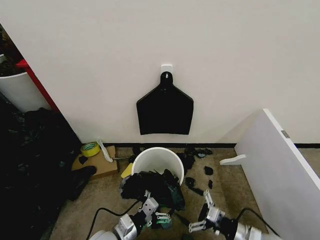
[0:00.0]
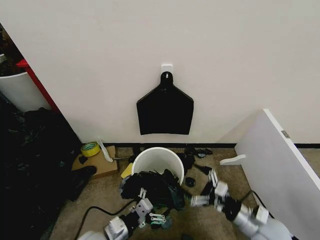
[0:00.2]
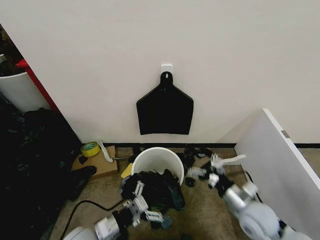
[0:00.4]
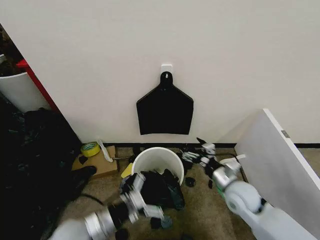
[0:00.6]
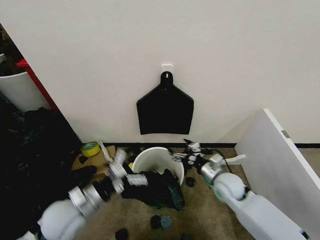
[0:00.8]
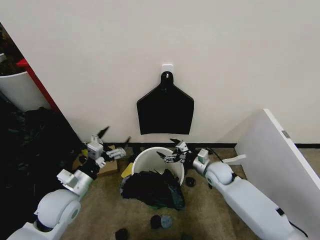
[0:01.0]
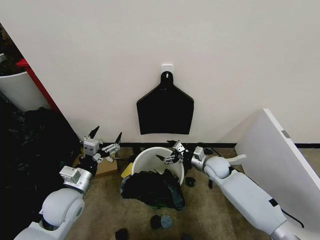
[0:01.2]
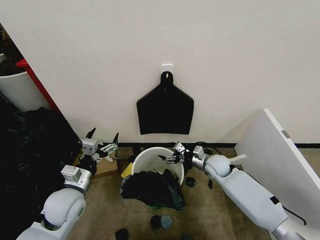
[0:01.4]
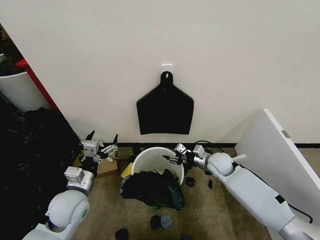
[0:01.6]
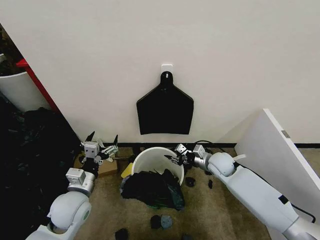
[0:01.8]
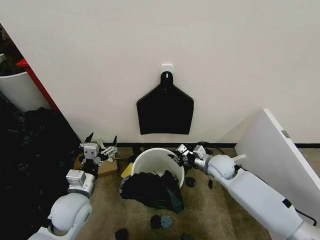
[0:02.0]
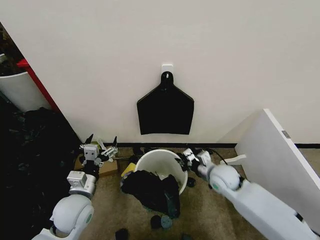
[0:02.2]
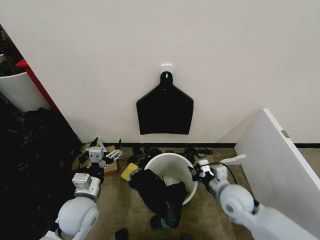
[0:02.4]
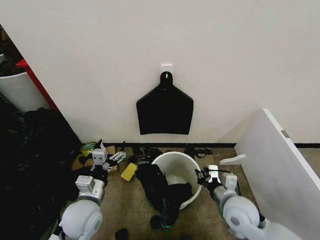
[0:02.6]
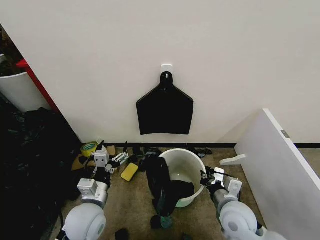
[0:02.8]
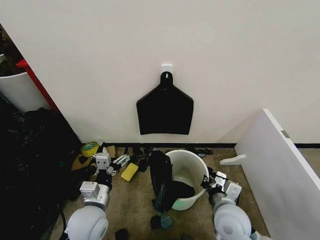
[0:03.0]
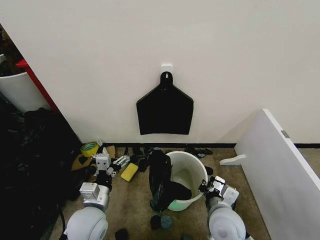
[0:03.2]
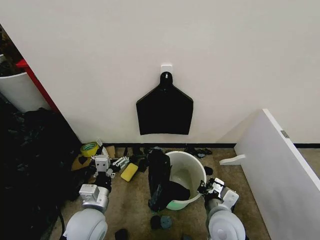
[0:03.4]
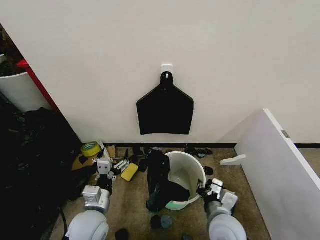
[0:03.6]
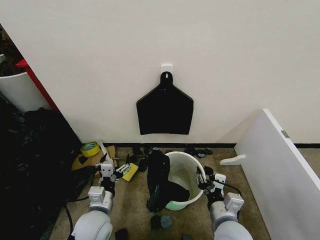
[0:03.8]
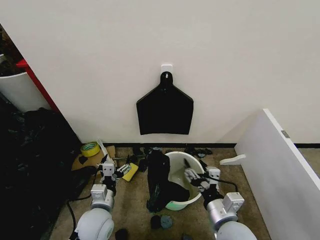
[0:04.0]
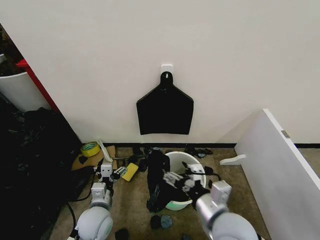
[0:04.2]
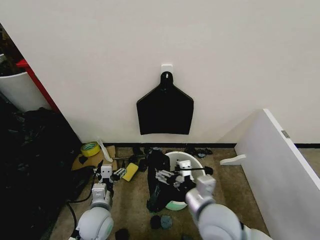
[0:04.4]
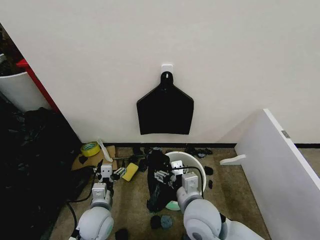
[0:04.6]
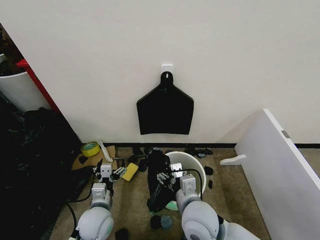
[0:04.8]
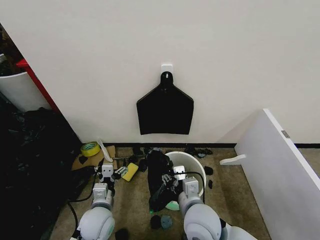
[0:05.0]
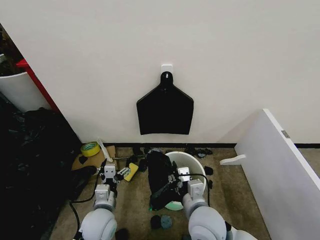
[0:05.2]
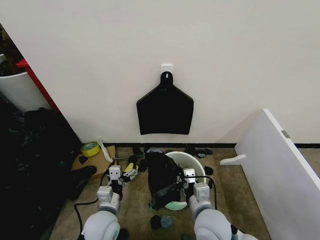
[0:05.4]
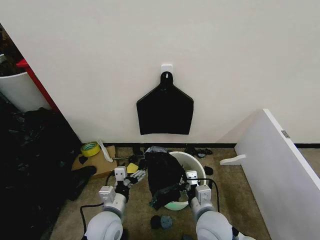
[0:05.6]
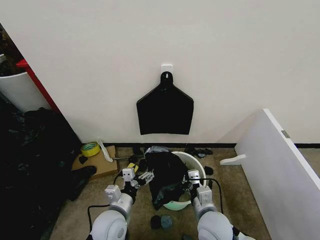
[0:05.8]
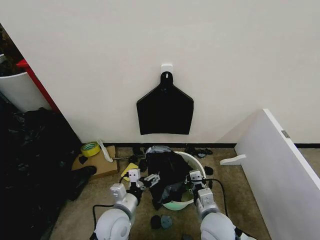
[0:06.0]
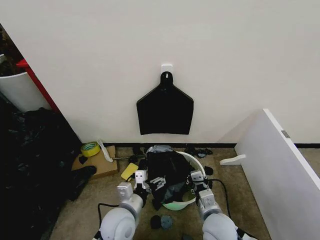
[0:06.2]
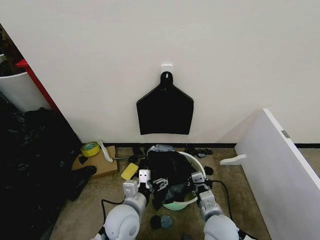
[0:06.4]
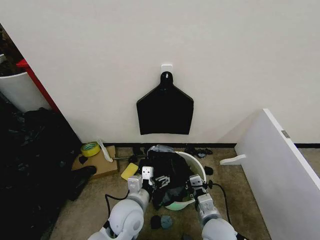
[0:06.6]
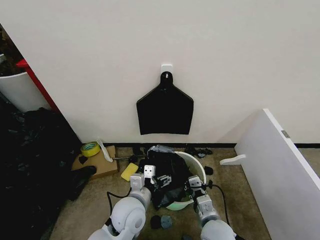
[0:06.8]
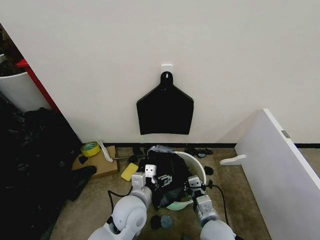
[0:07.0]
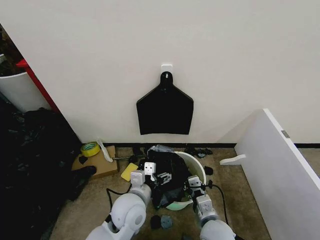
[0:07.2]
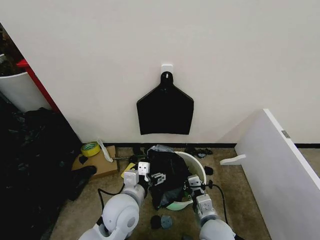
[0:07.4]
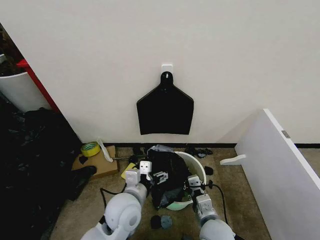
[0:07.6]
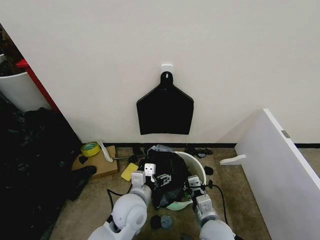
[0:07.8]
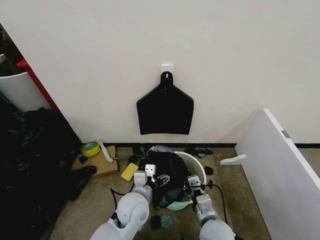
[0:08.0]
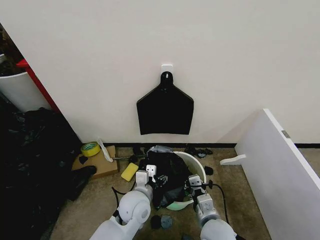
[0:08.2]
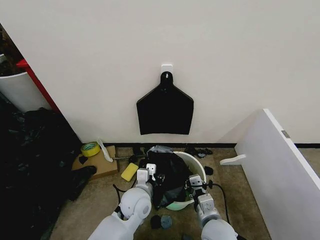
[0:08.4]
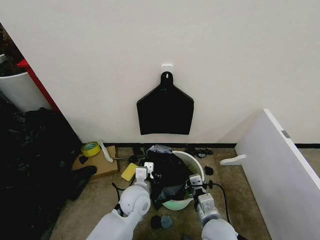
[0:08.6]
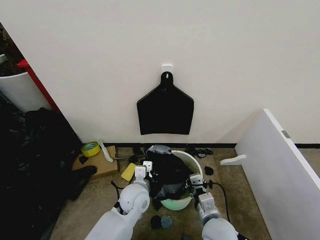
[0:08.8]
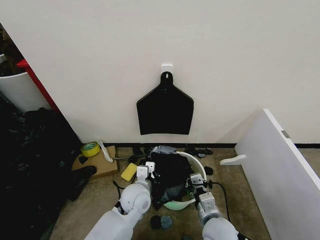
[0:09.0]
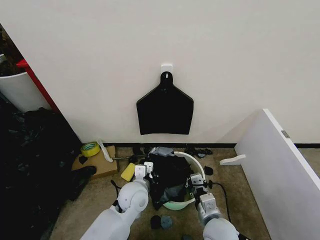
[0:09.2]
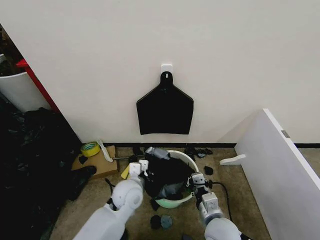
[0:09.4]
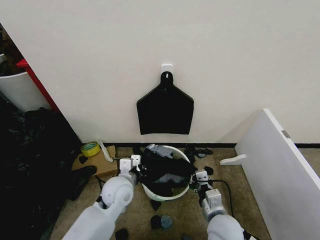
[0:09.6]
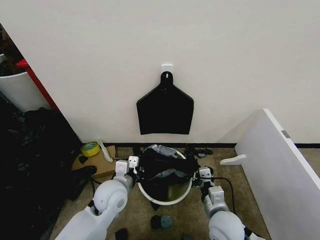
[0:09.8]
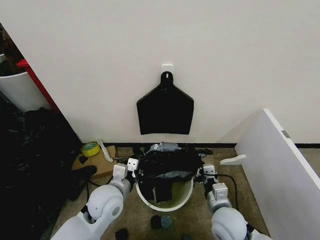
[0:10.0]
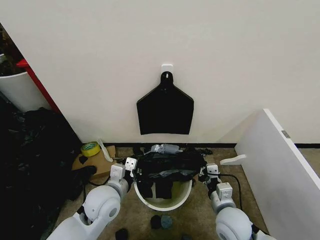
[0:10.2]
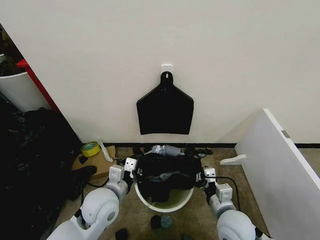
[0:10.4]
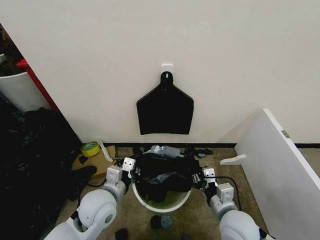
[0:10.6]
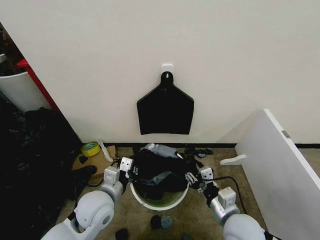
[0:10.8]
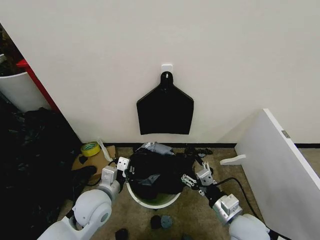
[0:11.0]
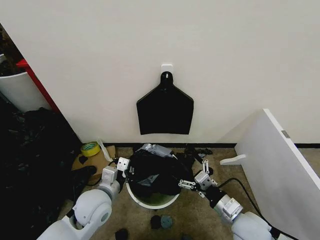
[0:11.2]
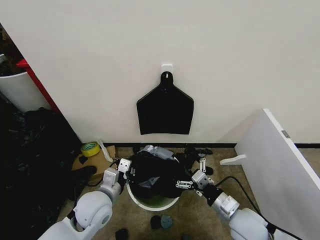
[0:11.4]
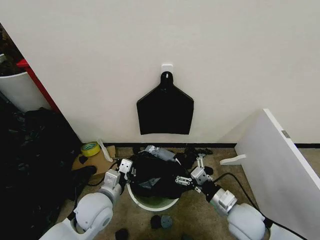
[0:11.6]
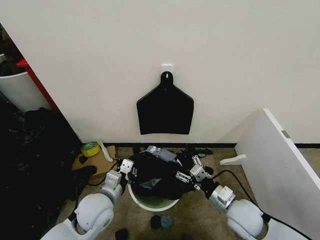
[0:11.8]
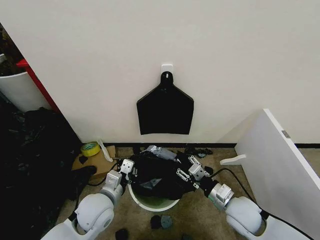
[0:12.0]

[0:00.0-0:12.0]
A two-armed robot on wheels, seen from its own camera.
Task of the whole recording: Place the garbage bag over the trash bin.
0.0 to 1.6 s: The left gripper is displaced upward, to the left and forward by some 15 cm; the right gripper shifts roughly 25 cm forward, and closes up.
1.6 to 3.0 s: The left gripper shifts roughly 5 cm to the right. The right gripper is displaced backward by roughly 20 cm, and closes.
3.0 to 4.4 s: The right gripper shifts roughly 10 cm upward and to the left, and opens up. Meanwhile the left gripper is displaced downward by roughly 5 cm.
4.4 to 6.0 s: The left gripper travels to the right by about 5 cm. The right gripper goes some 10 cm downward, and closes.
6.0 to 7.6 s: The left gripper goes about 5 cm upward.
7.6 to 9.0 s: The left gripper moves downward and forward, approximately 10 cm, and closes.
9.0 to 10.4 s: The left gripper is displaced to the left and upward by approximately 10 cm. Meanwhile the right gripper shifts by roughly 5 cm.
10.4 to 12.0 s: The right gripper moves approximately 5 cm, and opens its fingers.

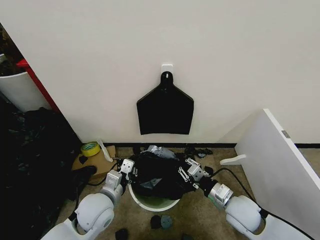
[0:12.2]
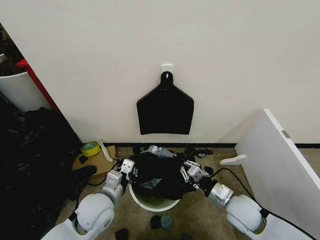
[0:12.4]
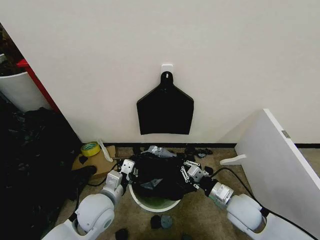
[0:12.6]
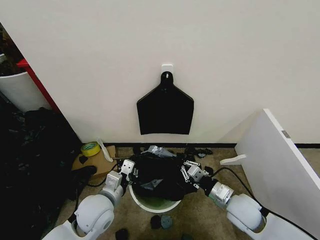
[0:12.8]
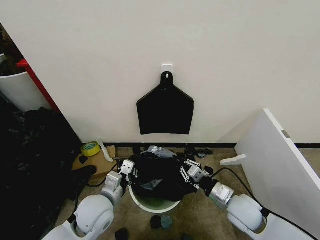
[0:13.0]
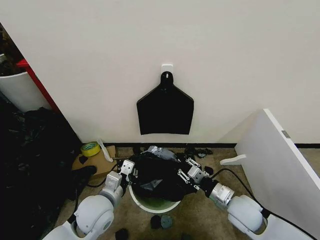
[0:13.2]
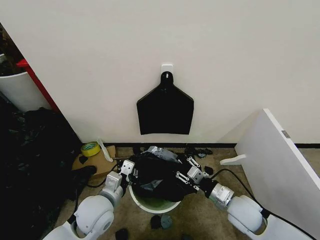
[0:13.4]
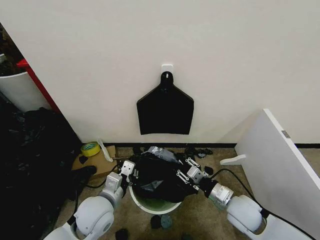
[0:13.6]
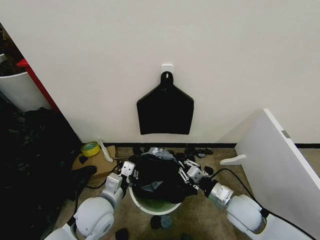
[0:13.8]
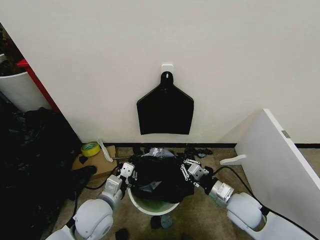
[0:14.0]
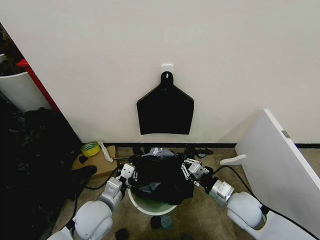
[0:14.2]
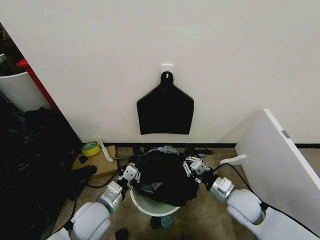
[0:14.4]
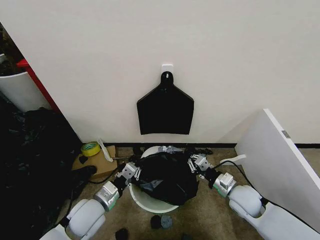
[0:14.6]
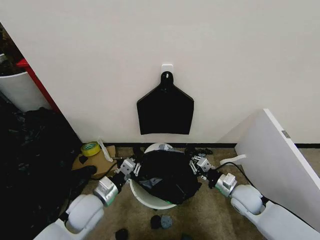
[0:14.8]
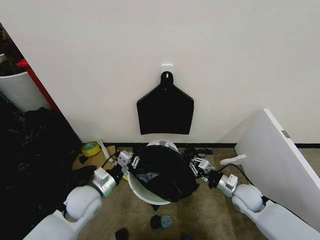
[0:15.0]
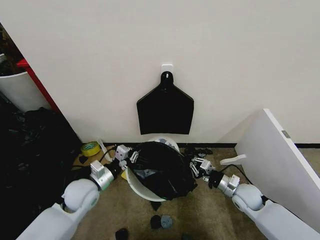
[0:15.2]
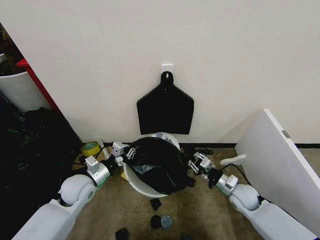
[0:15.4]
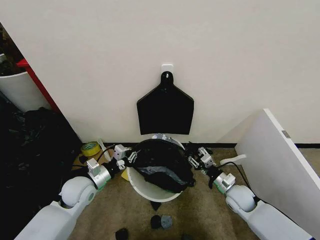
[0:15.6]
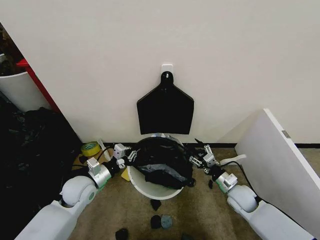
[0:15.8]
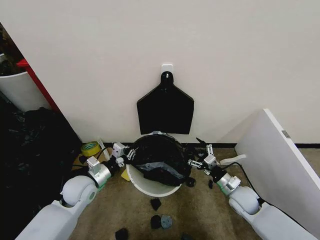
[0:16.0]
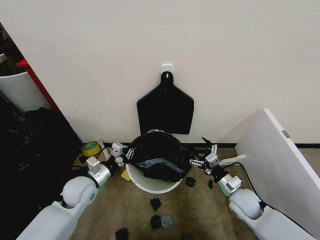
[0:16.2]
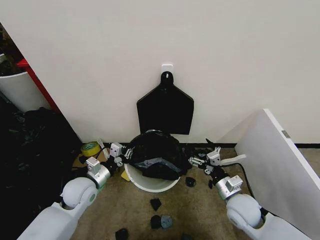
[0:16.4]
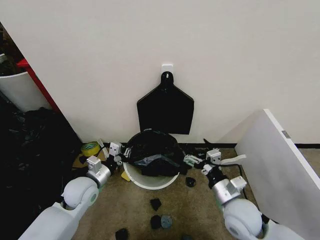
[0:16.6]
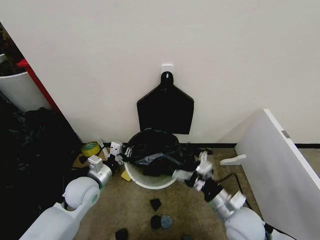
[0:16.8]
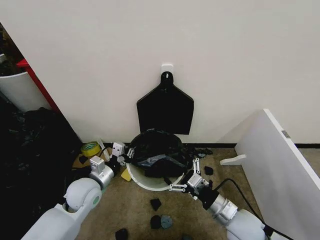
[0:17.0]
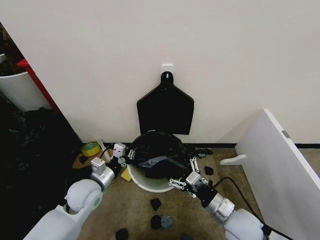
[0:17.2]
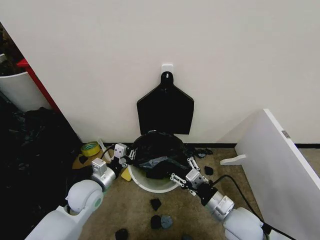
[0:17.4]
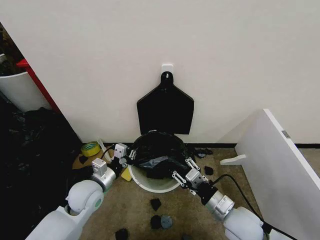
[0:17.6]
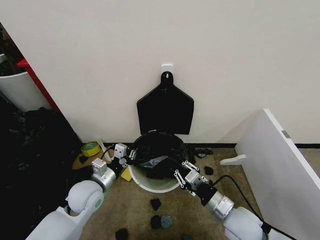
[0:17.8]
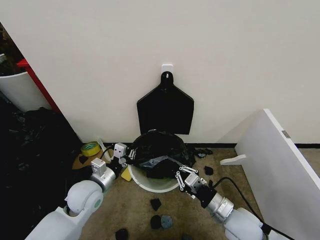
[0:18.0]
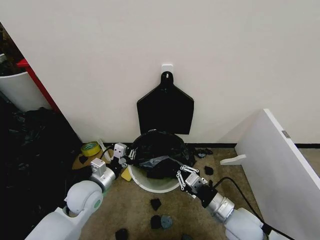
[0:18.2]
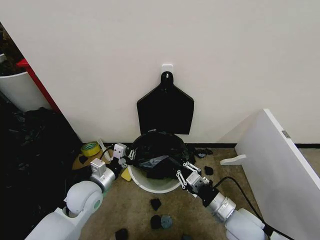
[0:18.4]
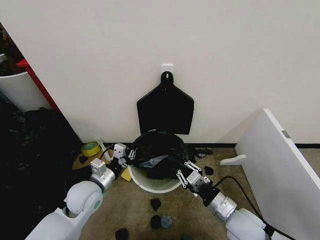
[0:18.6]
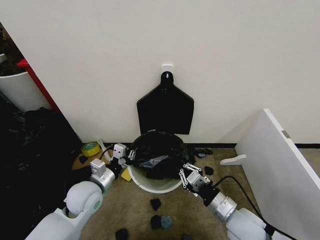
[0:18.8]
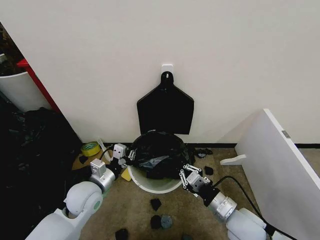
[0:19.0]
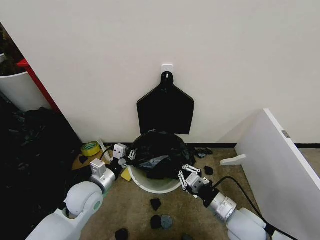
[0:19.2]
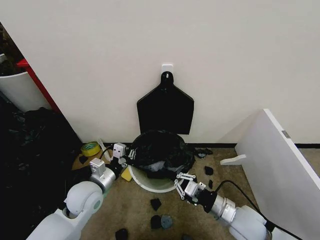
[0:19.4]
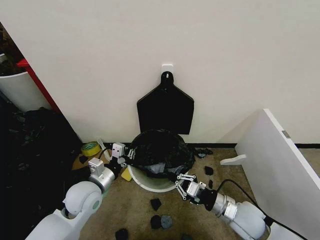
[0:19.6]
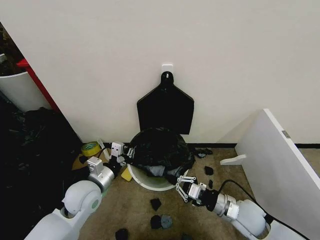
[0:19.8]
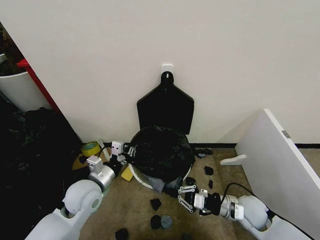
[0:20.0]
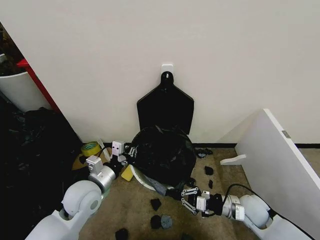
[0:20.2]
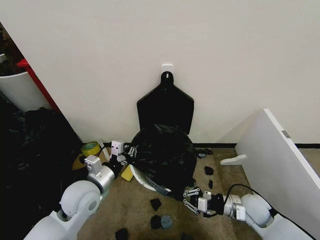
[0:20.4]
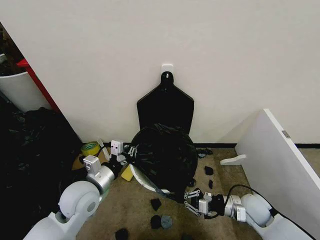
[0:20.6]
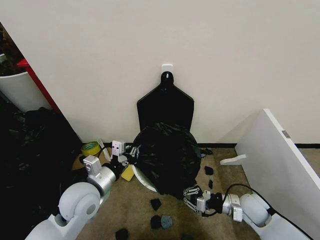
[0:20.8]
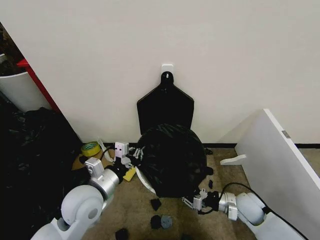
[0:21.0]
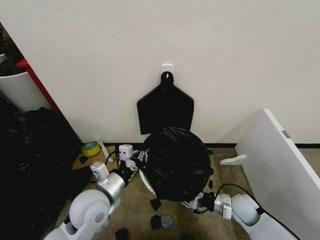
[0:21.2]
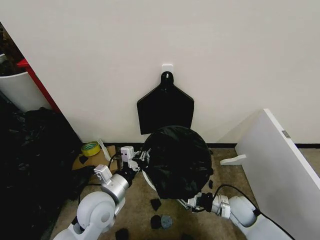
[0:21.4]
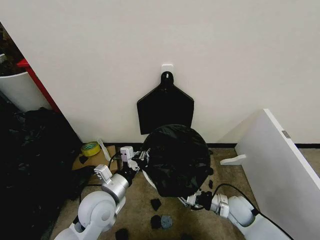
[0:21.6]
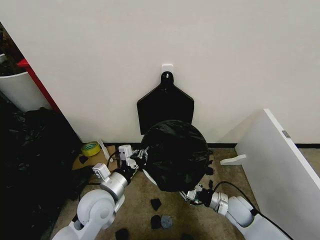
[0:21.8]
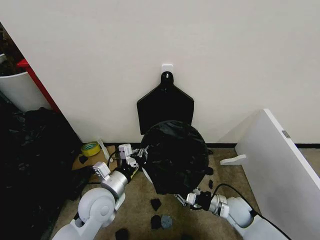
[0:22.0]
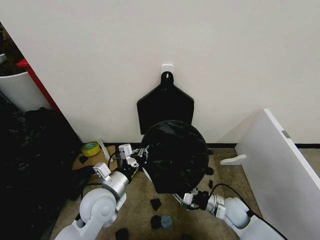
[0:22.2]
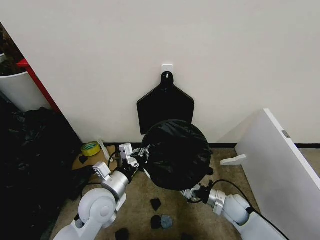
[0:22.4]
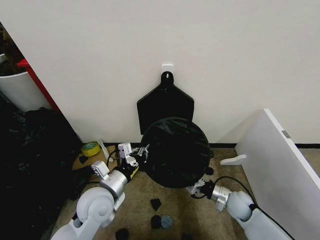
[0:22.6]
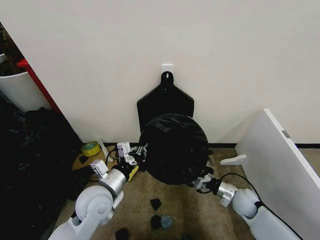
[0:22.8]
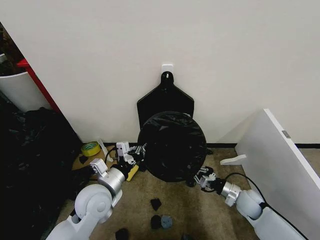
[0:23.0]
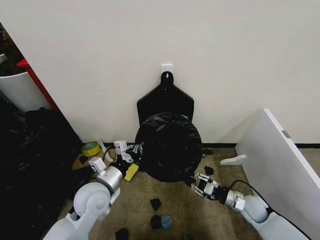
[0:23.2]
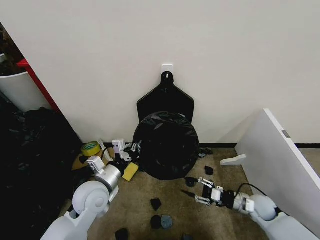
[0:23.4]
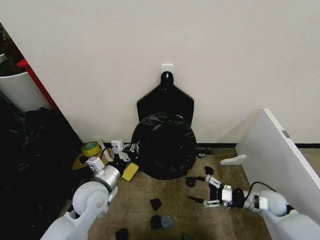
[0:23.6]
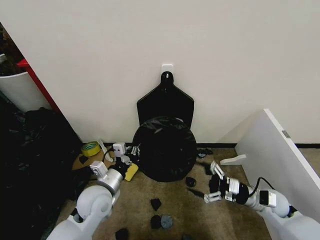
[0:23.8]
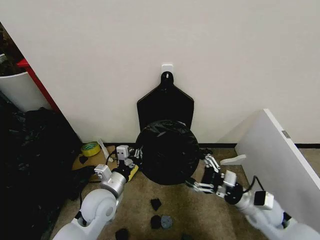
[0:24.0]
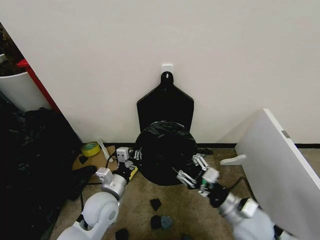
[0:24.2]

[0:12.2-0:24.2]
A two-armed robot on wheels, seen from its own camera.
Task of the whole recording: Place the garbage bag over the trash bin.
12.2 to 13.8 s: The two grippers keep their place.
13.8 to 15.2 s: The left gripper moves to the left and forward, about 10 cm. Meanwhile the right gripper goes about 10 cm forward, to the right and downward.
15.2 to 16.6 s: The right gripper moves upward, to the left and backward, about 15 cm, and opens.
16.6 to 18.2 s: The right gripper closes.
18.2 to 19.8 s: The right gripper moves roughly 5 cm.
19.8 to 21.2 s: The left gripper ends up about 5 cm from where it was. The right gripper is displaced downward by some 5 cm.
21.2 to 22.6 s: The grippers stay close to where they were, moving slightly.
22.6 to 24.2 s: The right gripper shifts about 15 cm upward and backward, and opens.
